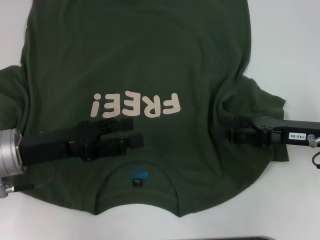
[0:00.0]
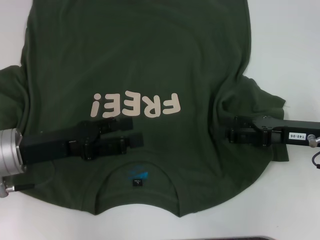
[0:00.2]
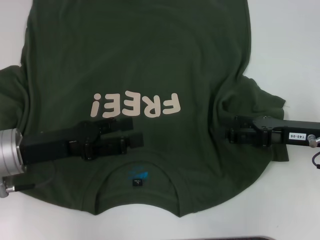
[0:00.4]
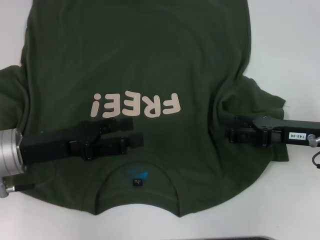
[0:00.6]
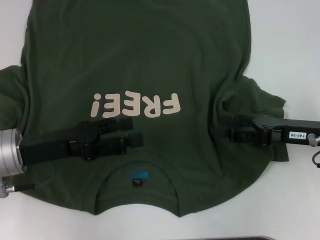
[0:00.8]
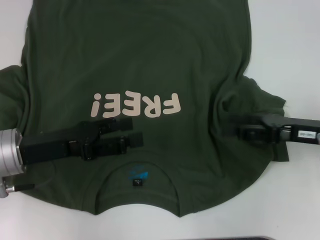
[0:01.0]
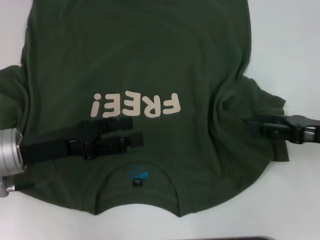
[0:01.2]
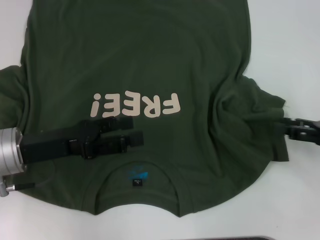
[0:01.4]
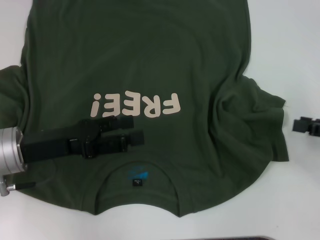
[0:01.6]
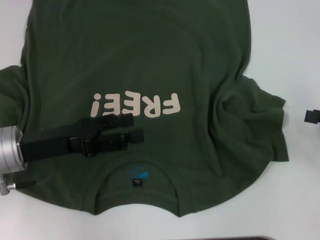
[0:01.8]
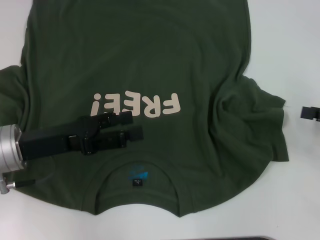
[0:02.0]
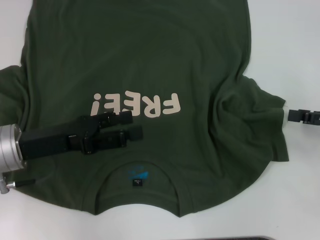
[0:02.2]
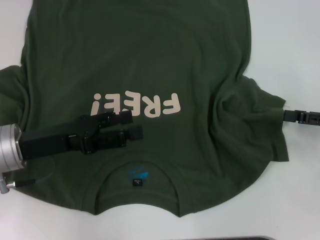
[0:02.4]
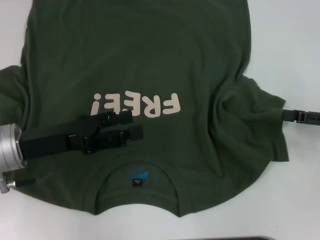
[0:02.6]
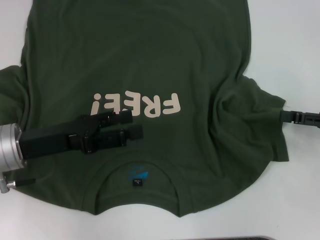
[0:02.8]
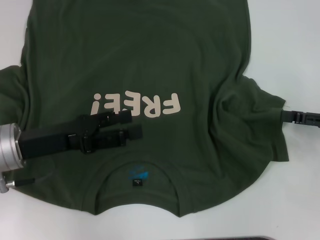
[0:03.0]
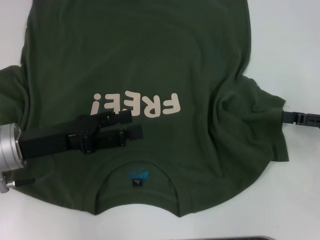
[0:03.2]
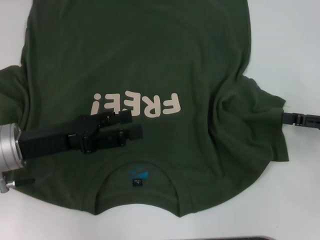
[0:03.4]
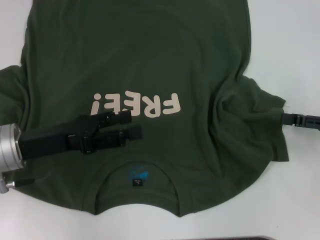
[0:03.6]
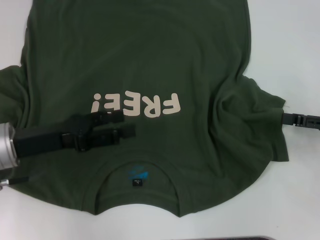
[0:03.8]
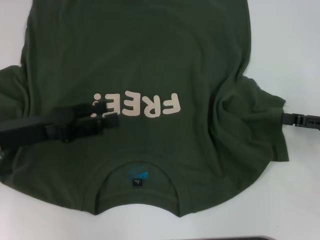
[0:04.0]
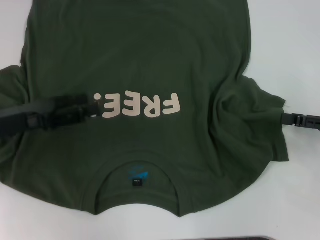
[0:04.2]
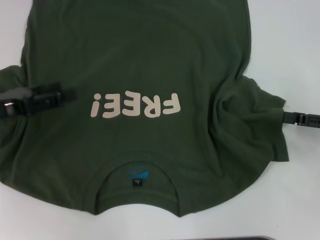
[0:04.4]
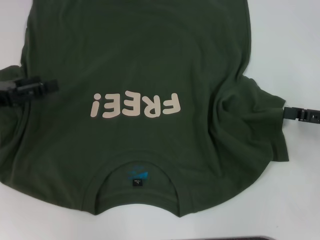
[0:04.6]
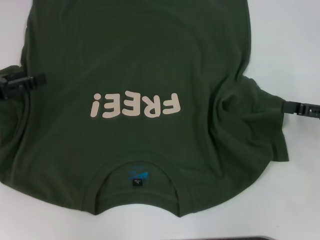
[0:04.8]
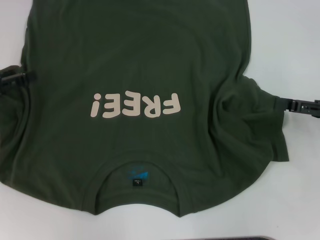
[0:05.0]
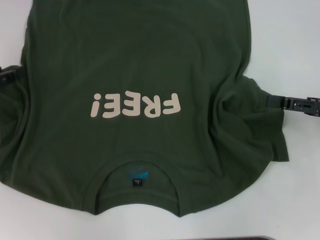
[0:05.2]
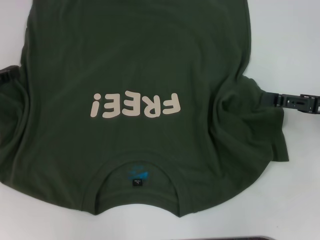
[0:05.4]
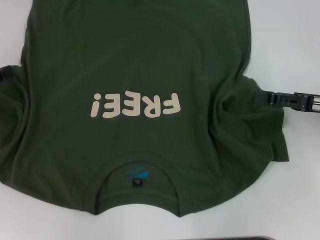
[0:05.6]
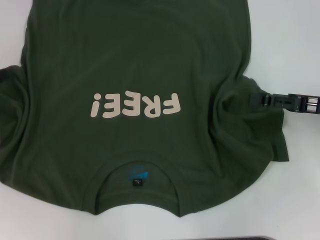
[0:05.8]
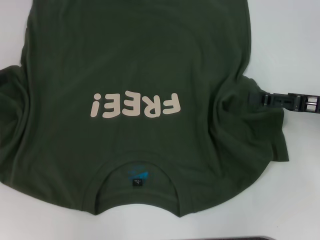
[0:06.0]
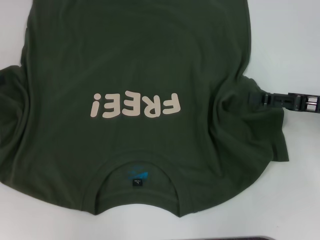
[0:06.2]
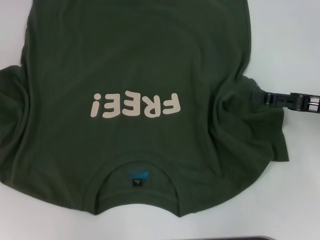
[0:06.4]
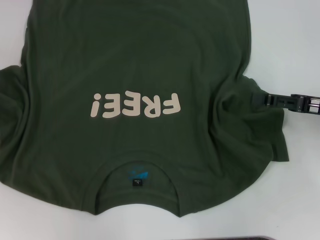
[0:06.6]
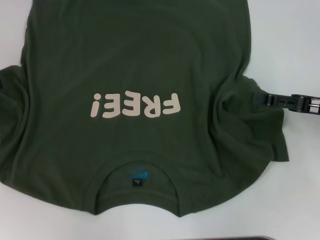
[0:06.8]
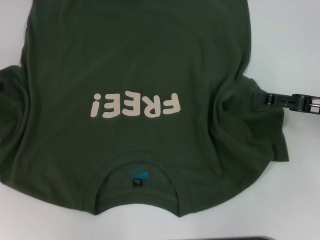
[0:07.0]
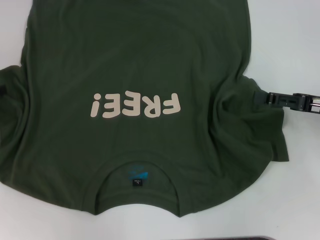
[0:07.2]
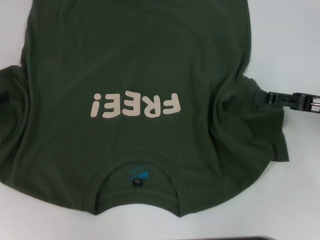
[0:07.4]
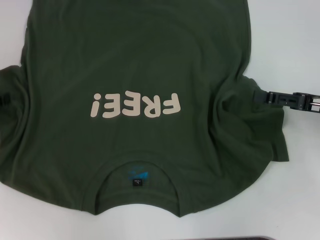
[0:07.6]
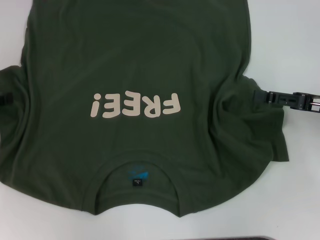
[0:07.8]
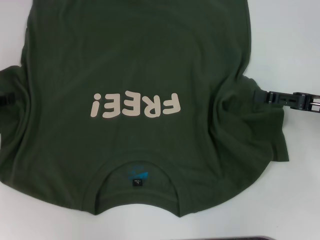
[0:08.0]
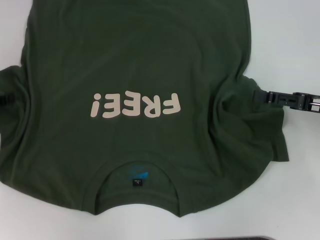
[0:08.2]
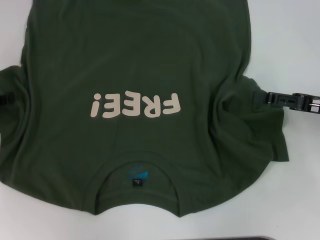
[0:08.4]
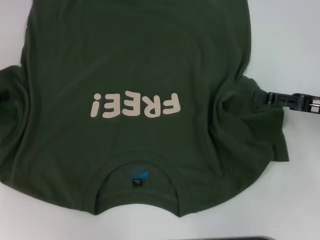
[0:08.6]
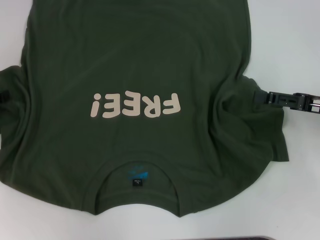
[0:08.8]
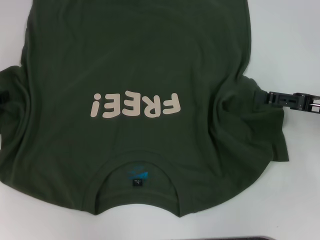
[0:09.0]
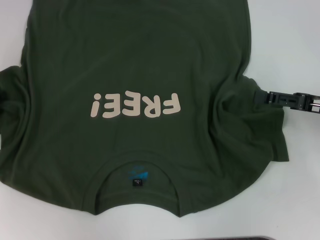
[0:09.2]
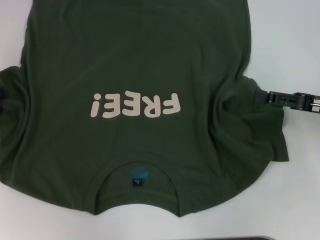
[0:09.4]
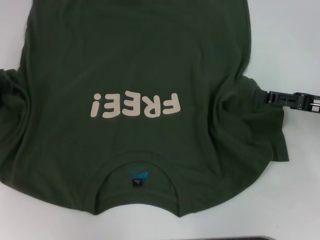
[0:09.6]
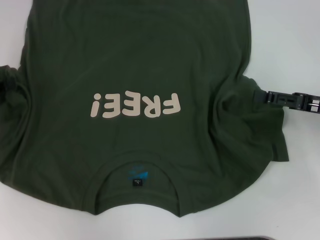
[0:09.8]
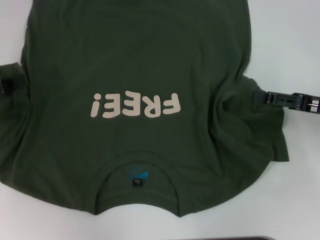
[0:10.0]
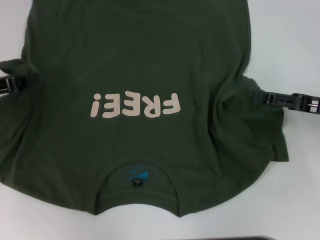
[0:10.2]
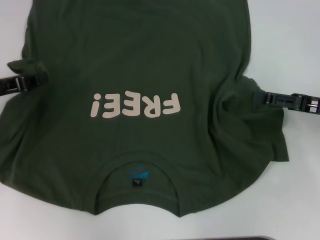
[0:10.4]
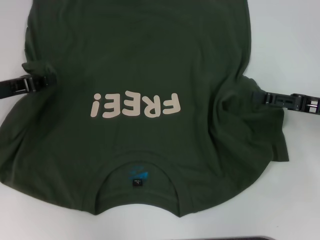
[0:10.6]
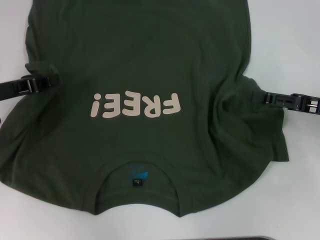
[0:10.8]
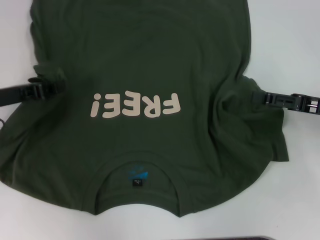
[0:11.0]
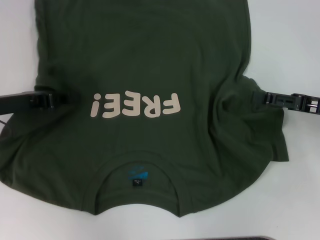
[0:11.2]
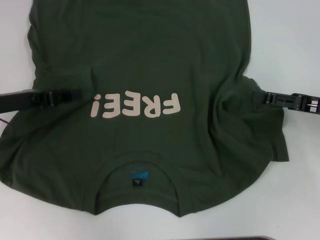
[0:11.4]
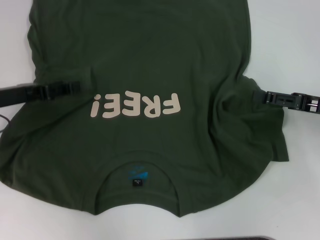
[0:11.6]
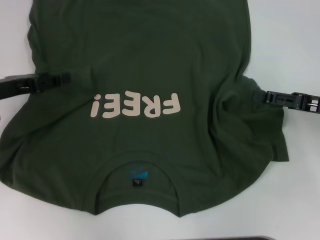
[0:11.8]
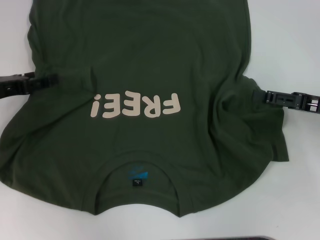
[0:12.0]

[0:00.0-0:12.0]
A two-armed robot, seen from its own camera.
0:00.0 to 0:01.6: The right gripper goes about 10 cm to the right.
0:01.6 to 0:03.0: The grippers stay close to where they were, moving slightly.
0:03.0 to 0:04.4: The left gripper moves to the left, approximately 10 cm.
0:04.4 to 0:06.0: The right gripper shifts by roughly 5 cm. Meanwhile the left gripper goes some 5 cm to the left.
0:09.0 to 0:10.4: The left gripper heads to the right, covering approximately 5 cm, and closes.
0:10.4 to 0:12.0: The left gripper opens.

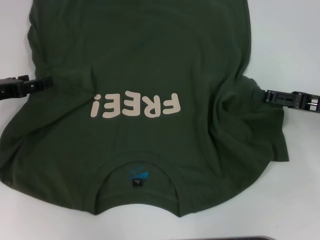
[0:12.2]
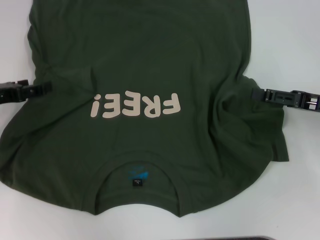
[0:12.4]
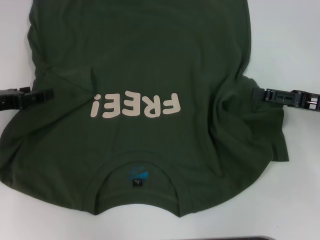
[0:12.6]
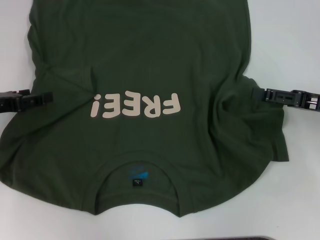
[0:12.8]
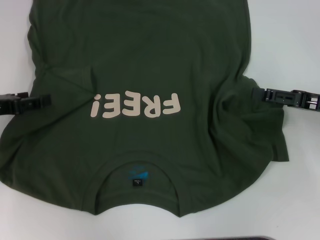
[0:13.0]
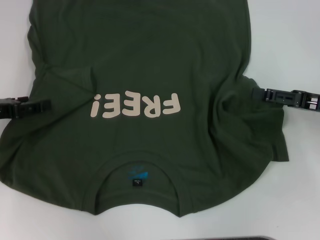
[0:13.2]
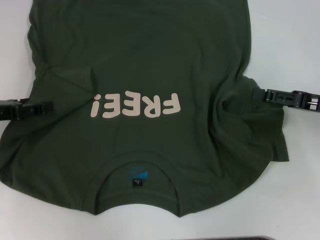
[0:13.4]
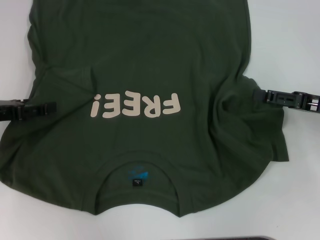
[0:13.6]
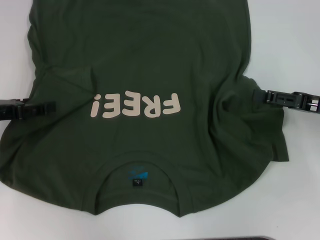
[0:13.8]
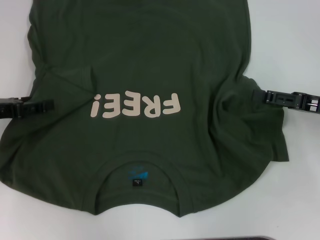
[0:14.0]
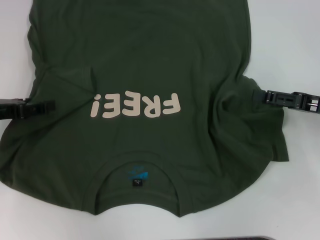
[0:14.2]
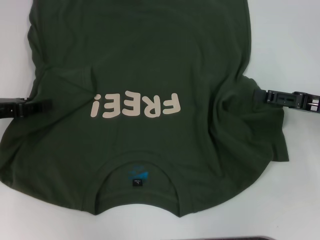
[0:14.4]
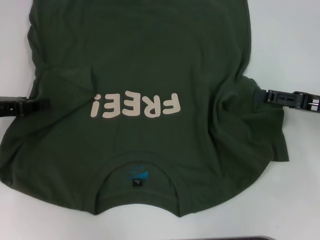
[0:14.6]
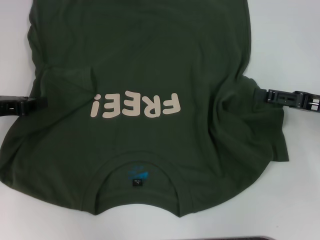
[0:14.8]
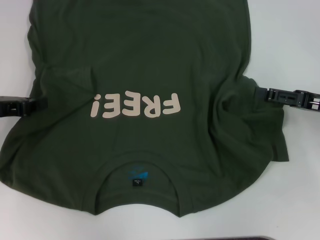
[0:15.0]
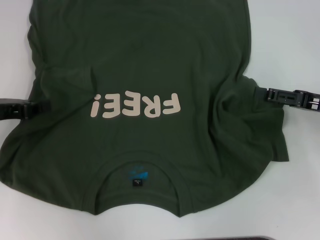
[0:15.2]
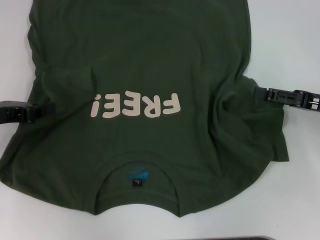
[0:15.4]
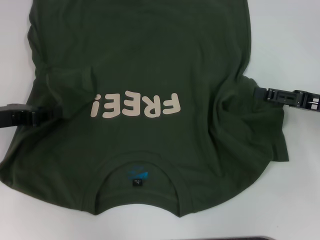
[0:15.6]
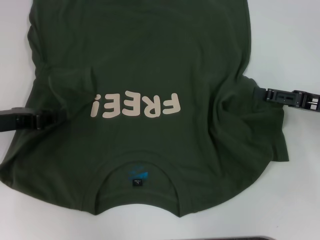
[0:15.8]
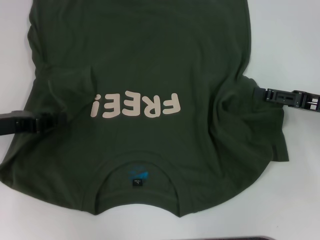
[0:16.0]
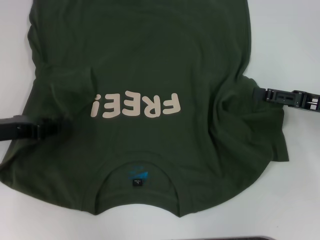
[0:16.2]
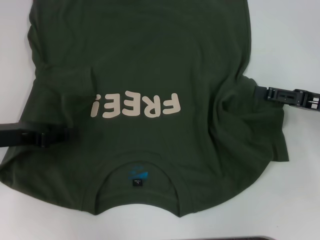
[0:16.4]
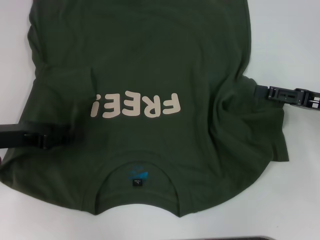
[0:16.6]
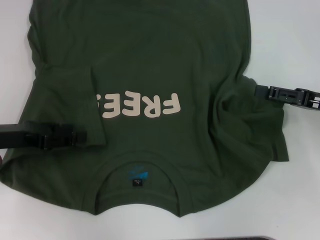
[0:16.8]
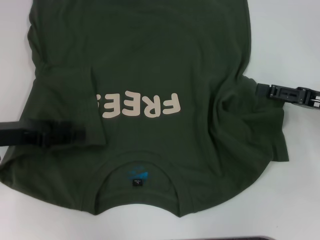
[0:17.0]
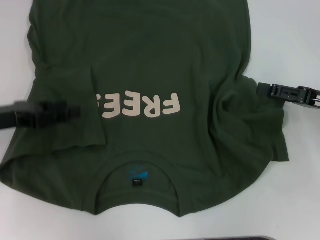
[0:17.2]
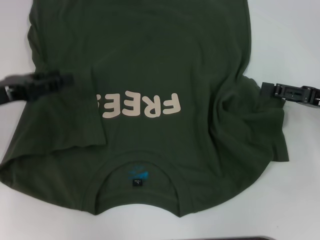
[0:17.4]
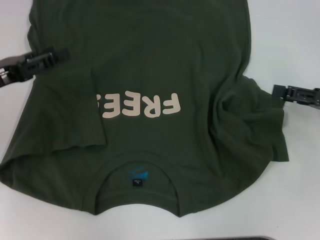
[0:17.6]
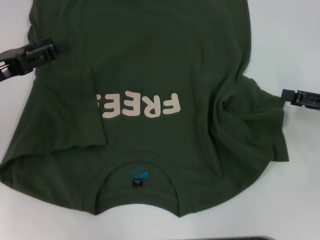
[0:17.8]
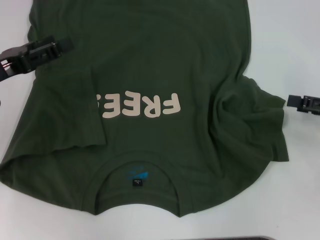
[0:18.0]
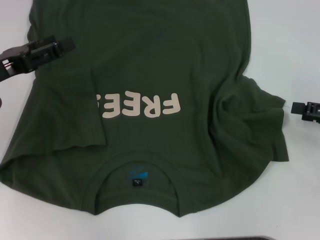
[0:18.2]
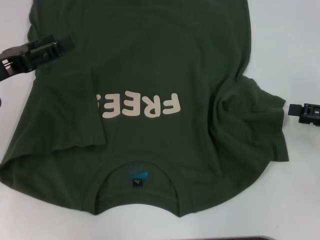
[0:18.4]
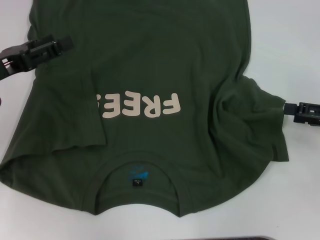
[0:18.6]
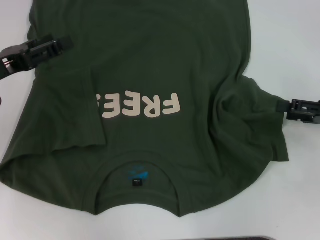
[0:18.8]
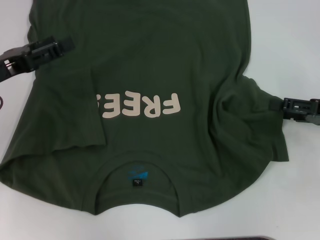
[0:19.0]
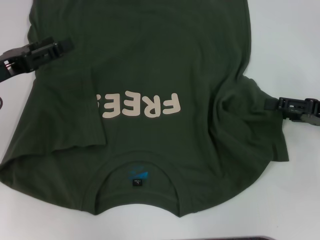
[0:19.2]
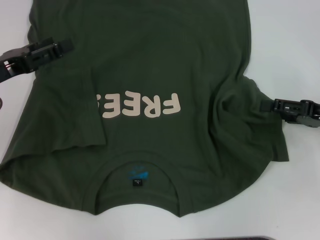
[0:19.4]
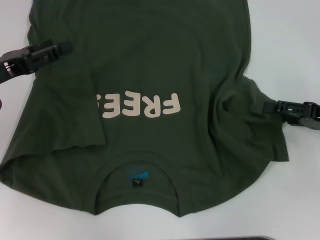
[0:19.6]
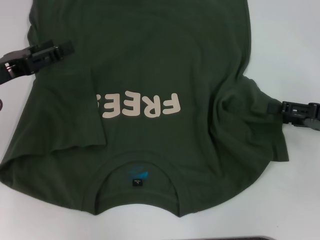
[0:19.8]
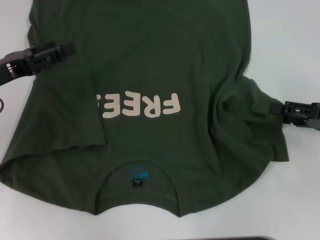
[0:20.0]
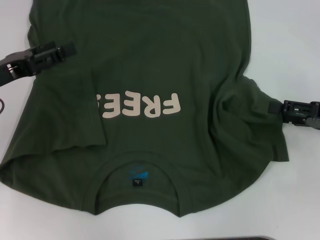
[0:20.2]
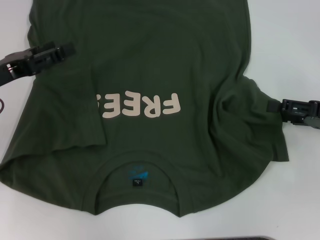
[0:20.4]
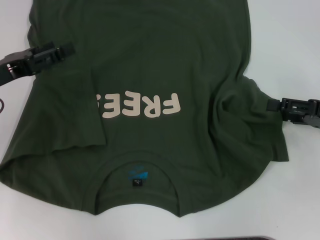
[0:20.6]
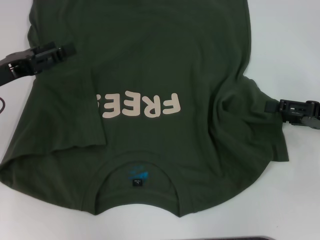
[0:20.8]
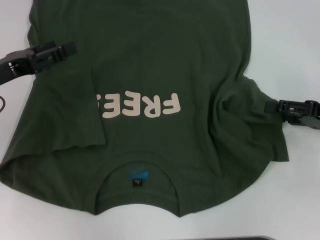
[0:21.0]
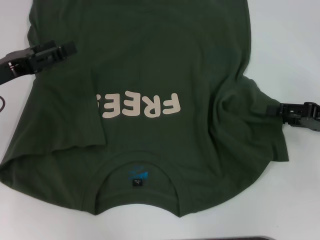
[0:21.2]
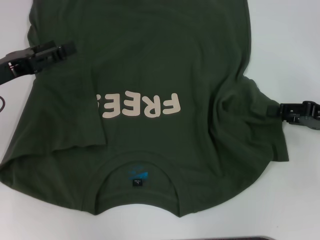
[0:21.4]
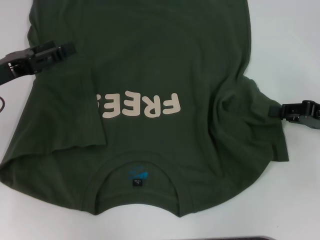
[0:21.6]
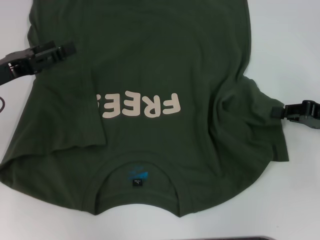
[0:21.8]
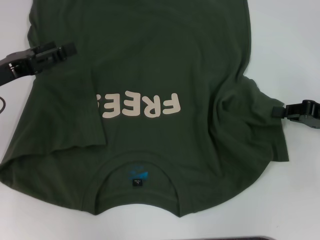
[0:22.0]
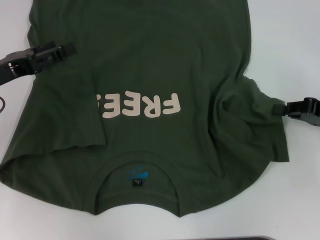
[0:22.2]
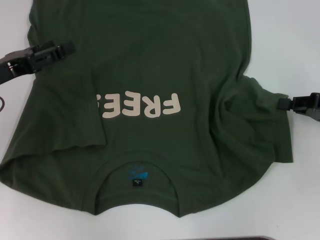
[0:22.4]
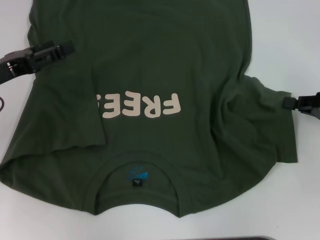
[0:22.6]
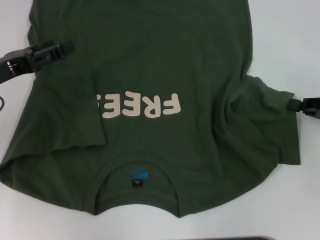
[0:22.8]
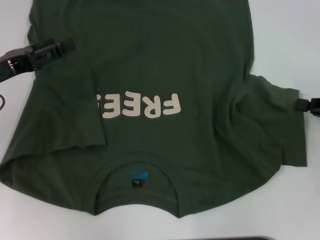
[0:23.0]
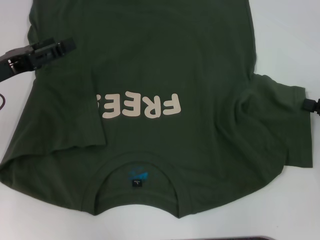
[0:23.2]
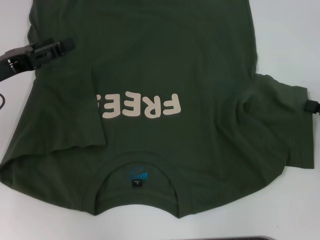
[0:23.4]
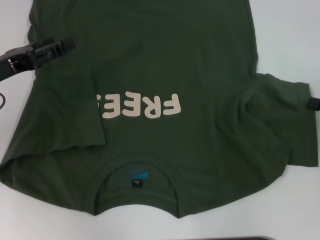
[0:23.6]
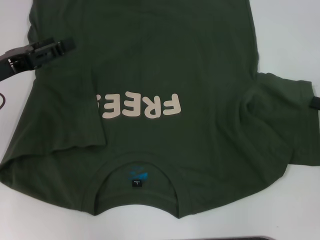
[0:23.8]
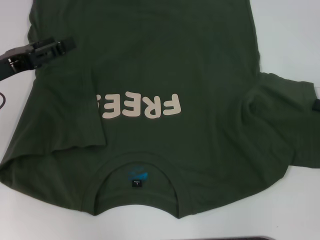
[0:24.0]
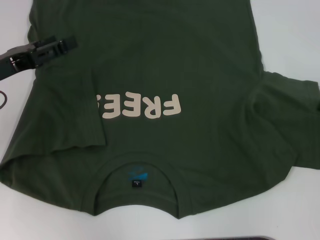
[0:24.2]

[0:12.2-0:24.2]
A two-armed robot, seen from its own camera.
Step, 0:12.2 to 0:17.2: Fold the bottom left sleeve with your left hand.
0:12.2 to 0:13.8: The grippers make only small movements.
0:15.2 to 0:16.6: There are only small adjustments of the grippers.
0:16.6 to 0:18.2: The right gripper is displaced to the right by some 5 cm, while the left gripper opens up.
0:18.2 to 0:19.8: There are only small adjustments of the grippers.
0:19.8 to 0:21.2: Both grippers stay about where they are.
0:21.2 to 0:22.6: The right gripper closes its fingers.
0:22.6 to 0:24.2: The right gripper changes place by about 5 cm.
